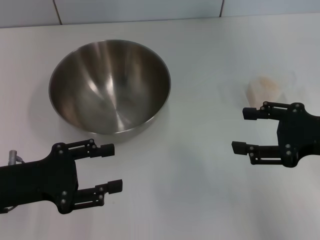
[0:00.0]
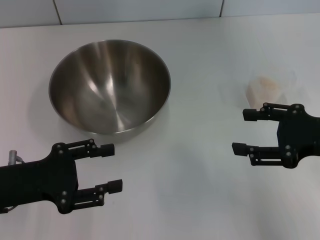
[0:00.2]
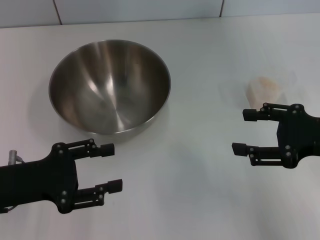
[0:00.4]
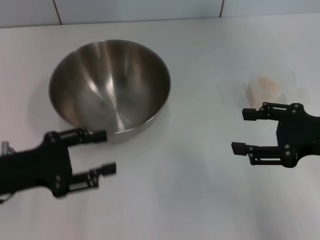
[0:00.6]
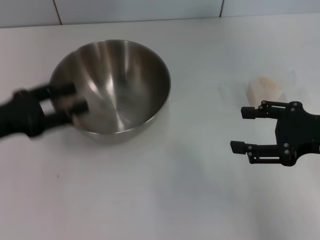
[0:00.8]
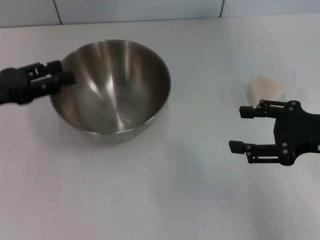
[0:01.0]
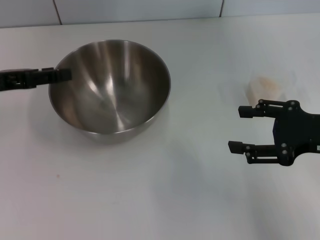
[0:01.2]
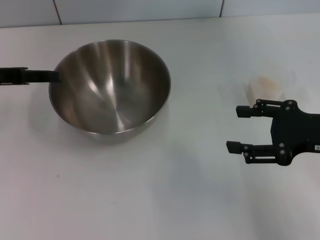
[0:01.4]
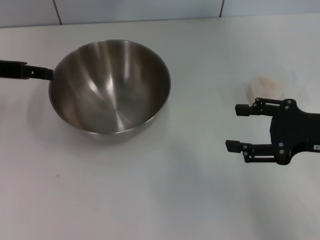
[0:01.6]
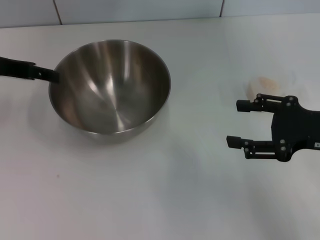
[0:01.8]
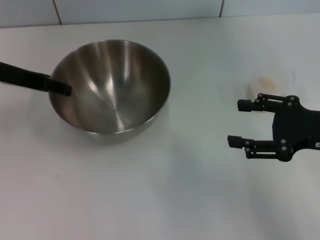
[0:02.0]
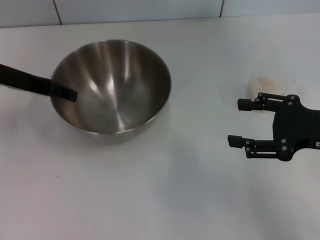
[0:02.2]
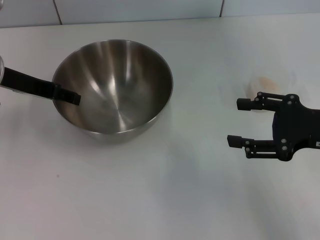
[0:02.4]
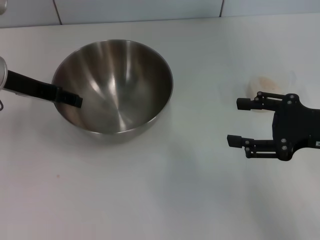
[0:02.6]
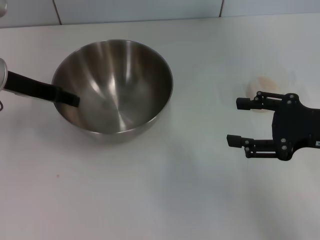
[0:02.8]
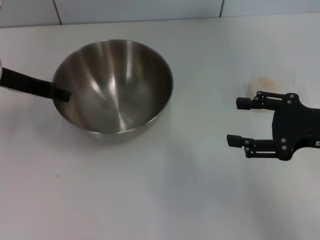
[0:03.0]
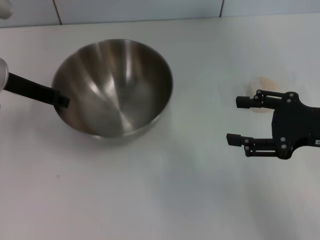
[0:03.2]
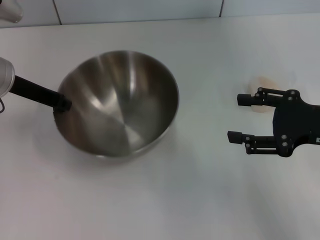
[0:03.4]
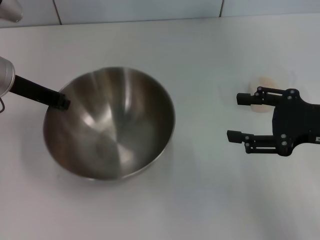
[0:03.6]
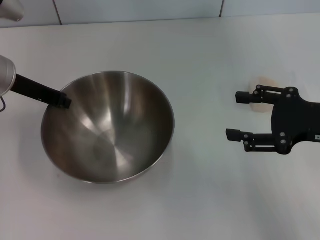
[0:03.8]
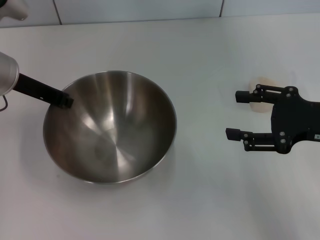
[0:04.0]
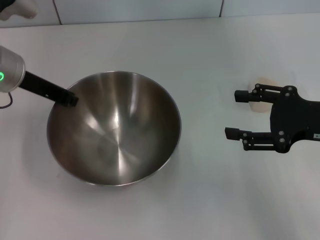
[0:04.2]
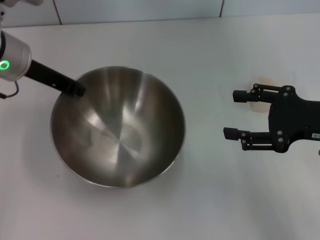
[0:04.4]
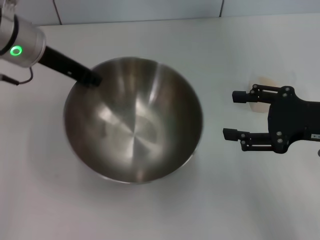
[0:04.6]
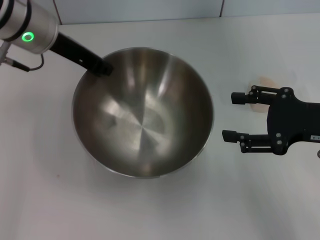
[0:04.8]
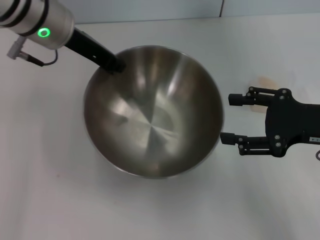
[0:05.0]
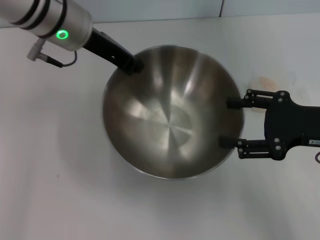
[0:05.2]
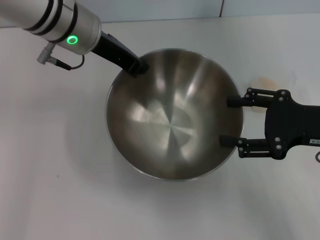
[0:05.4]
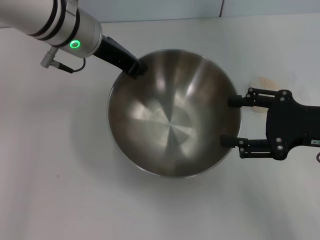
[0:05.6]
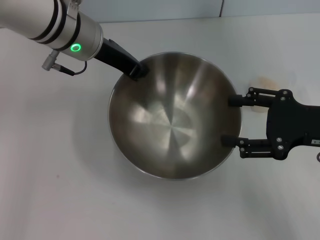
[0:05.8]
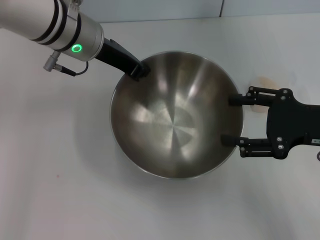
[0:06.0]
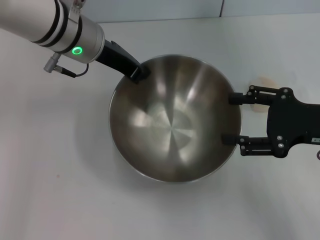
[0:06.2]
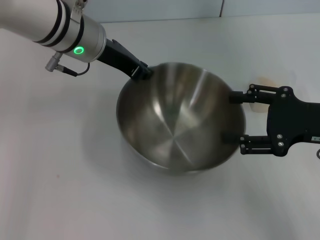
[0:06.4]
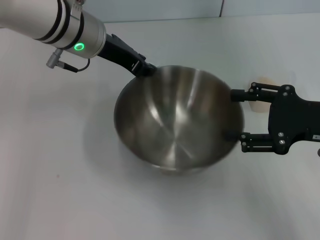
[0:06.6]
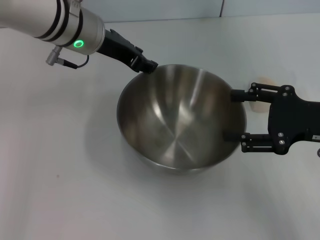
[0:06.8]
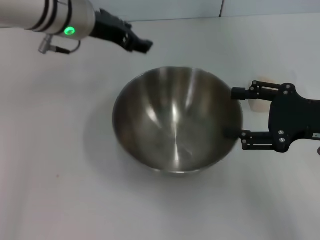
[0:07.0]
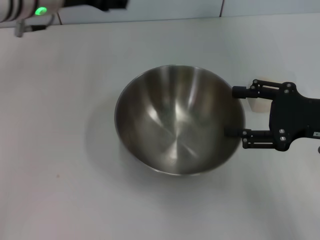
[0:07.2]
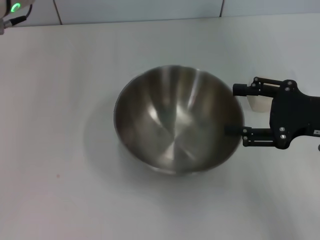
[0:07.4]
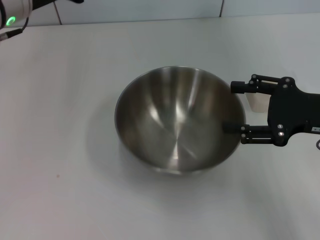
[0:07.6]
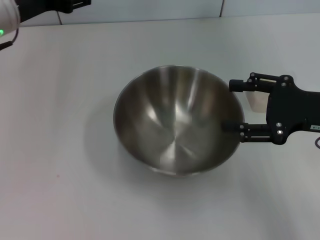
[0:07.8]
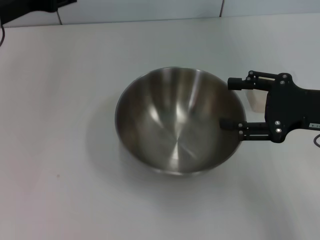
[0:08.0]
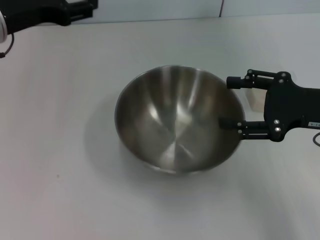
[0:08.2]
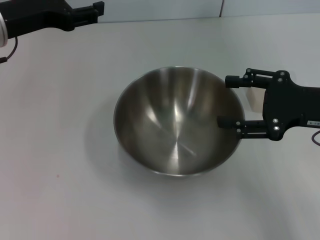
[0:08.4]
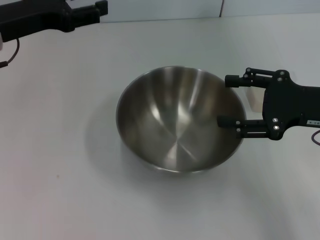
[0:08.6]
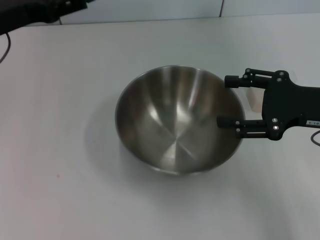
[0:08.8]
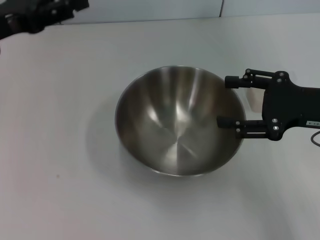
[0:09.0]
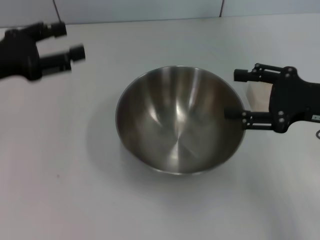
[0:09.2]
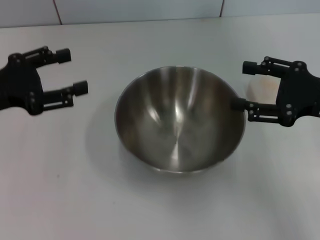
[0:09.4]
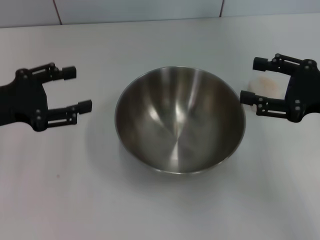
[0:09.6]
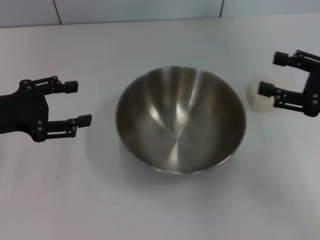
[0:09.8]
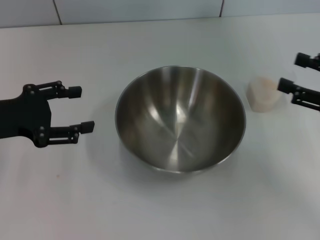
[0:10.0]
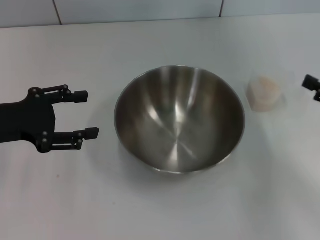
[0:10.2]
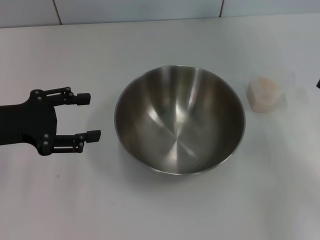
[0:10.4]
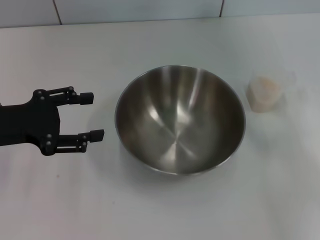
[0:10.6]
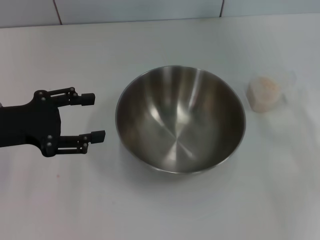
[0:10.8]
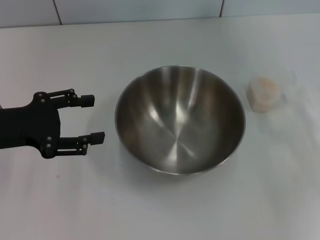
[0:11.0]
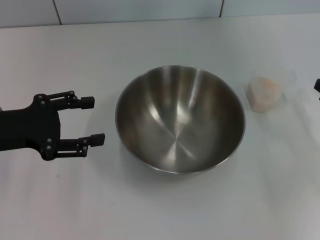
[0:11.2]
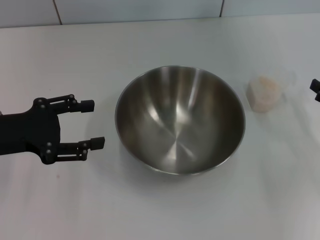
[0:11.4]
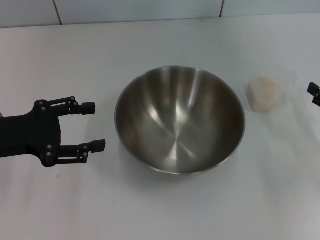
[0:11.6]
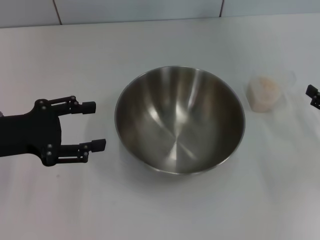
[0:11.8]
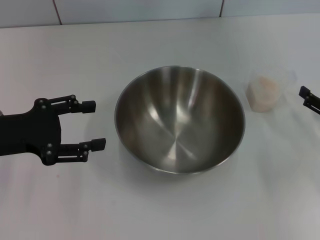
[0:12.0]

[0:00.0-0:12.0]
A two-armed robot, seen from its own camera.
Task of the whole recording: Place the bowl in the middle of the table with one hand and pour the rice from the grain cup into it with the other hand.
Step, 0.0 to 4.6 s: Pick up the bowl with the left gripper.
Step, 4.8 to 7.0 s: Place the bowl in the center of view with the left gripper.
0.0 to 1.6 s: The left gripper is displaced forward and upward by about 15 cm.
1.6 to 3.0 s: The left gripper changes place by approximately 5 cm.
3.0 to 4.4 s: The left gripper ends up some 5 cm from where it was, and closes.
4.4 to 6.0 s: The left gripper shifts about 10 cm to the right.
6.0 to 7.6 s: The left gripper goes about 10 cm to the left, and opens up.
7.6 to 9.0 s: The left gripper travels to the left by approximately 10 cm.
9.0 to 10.4 s: The left gripper is displaced backward and downward by approximately 10 cm, while the right gripper travels to the right and downward by approximately 10 cm.
10.4 to 12.0 s: The right gripper heads downward, covering some 5 cm.

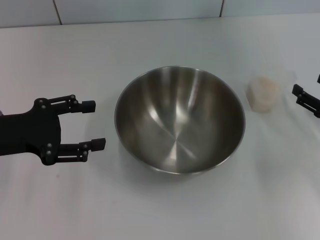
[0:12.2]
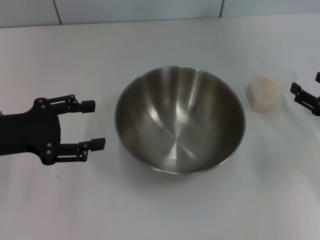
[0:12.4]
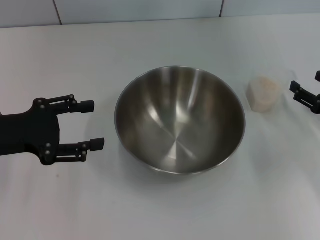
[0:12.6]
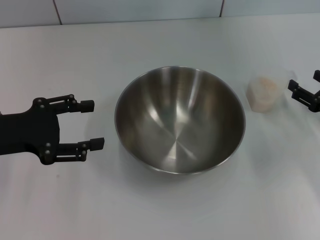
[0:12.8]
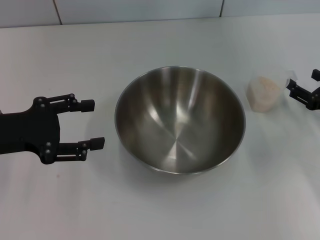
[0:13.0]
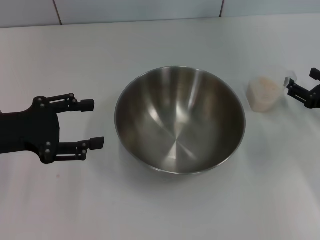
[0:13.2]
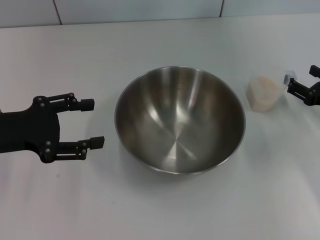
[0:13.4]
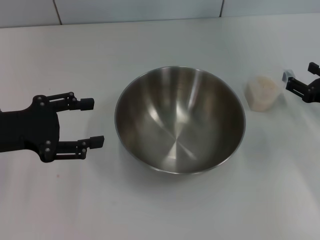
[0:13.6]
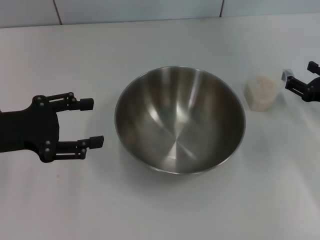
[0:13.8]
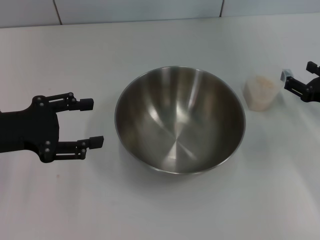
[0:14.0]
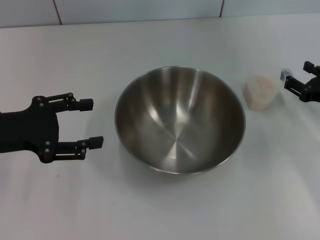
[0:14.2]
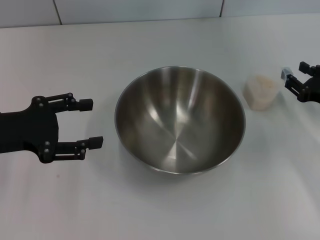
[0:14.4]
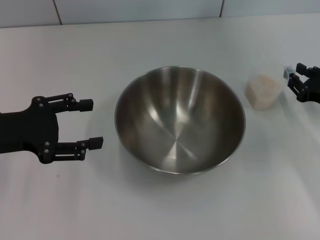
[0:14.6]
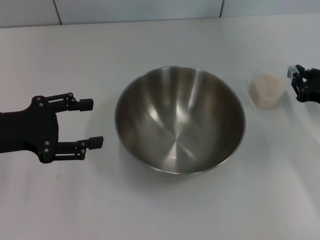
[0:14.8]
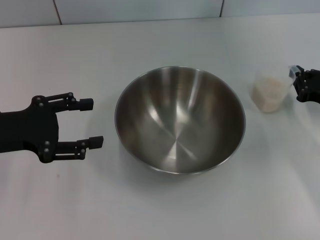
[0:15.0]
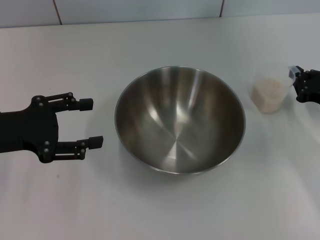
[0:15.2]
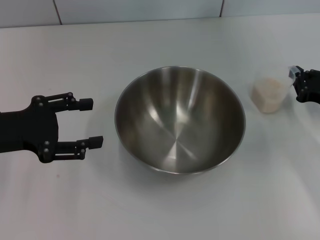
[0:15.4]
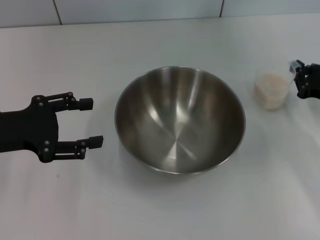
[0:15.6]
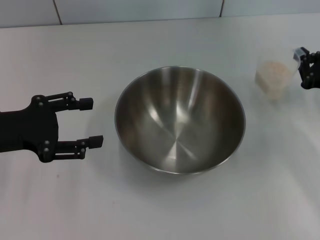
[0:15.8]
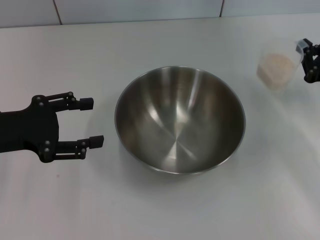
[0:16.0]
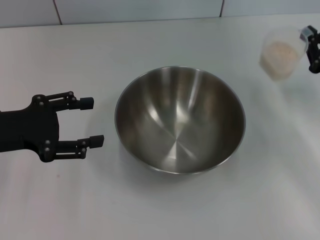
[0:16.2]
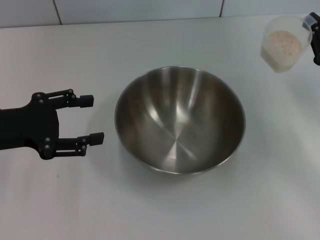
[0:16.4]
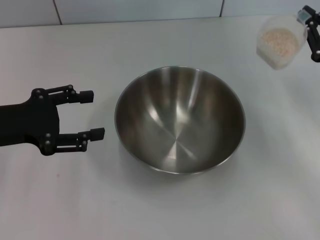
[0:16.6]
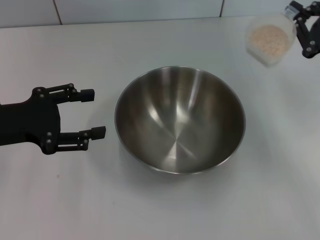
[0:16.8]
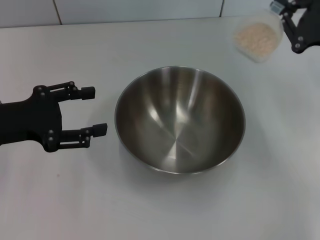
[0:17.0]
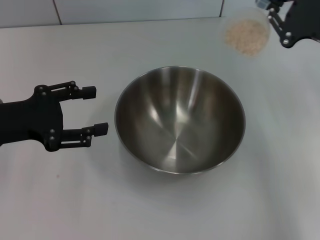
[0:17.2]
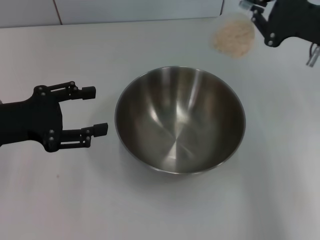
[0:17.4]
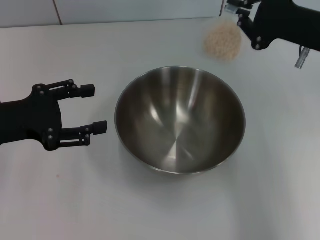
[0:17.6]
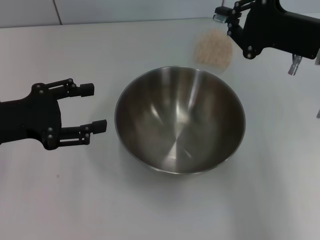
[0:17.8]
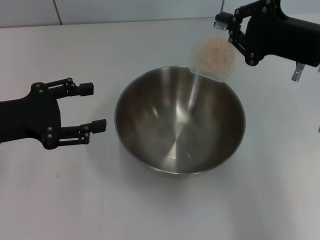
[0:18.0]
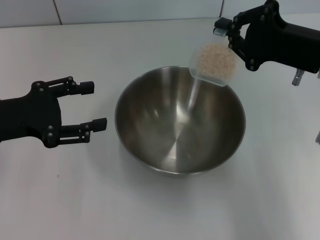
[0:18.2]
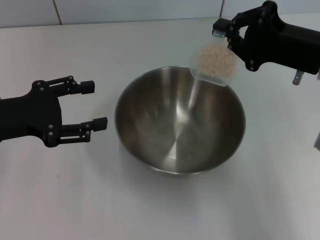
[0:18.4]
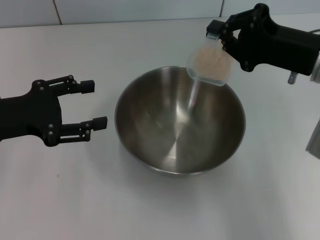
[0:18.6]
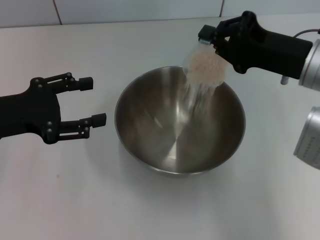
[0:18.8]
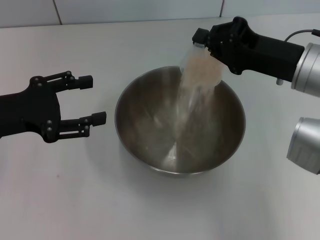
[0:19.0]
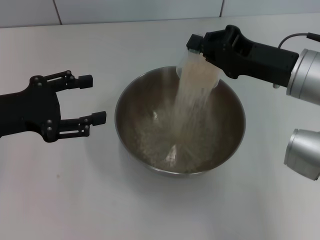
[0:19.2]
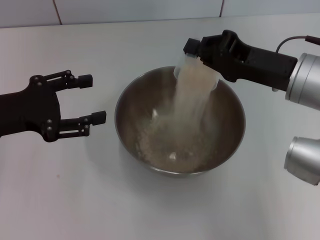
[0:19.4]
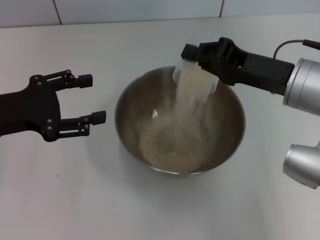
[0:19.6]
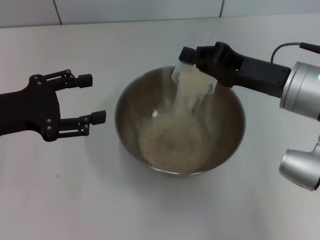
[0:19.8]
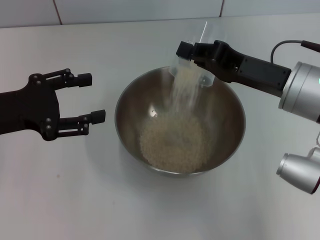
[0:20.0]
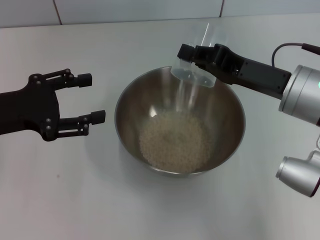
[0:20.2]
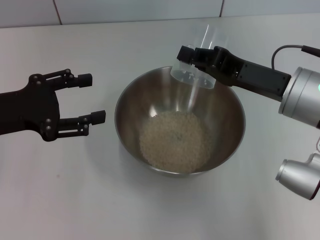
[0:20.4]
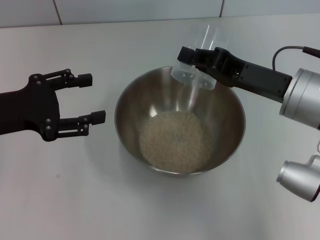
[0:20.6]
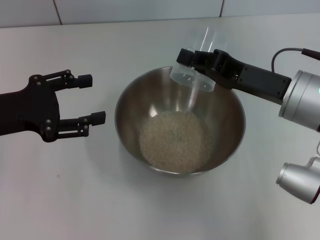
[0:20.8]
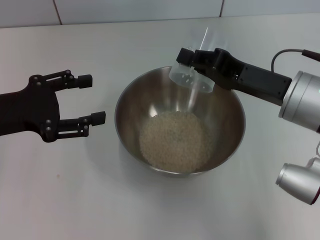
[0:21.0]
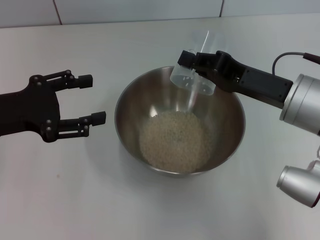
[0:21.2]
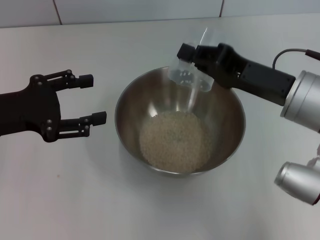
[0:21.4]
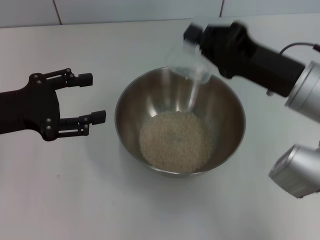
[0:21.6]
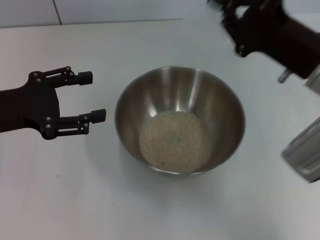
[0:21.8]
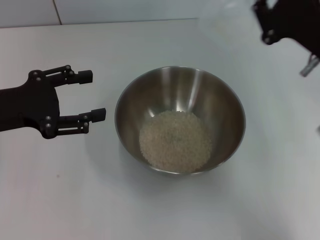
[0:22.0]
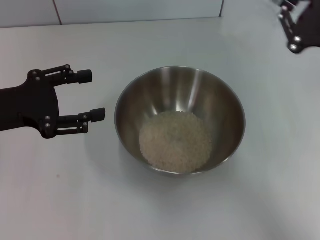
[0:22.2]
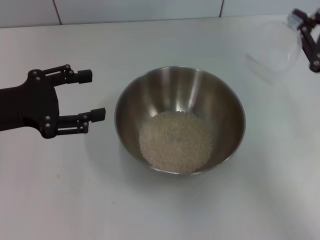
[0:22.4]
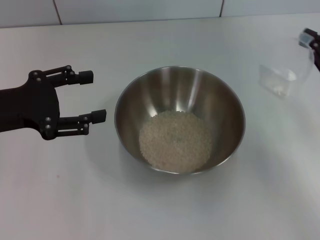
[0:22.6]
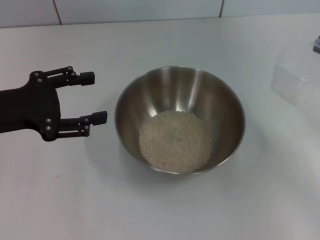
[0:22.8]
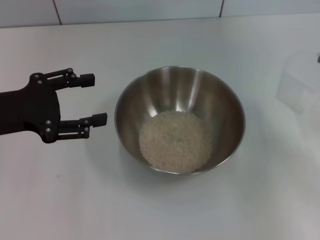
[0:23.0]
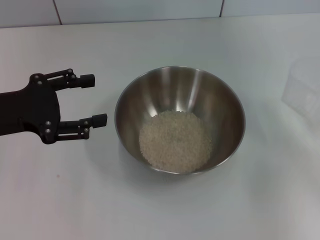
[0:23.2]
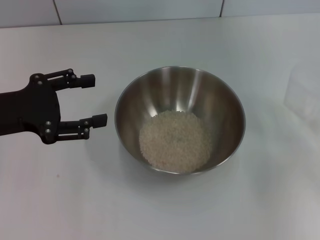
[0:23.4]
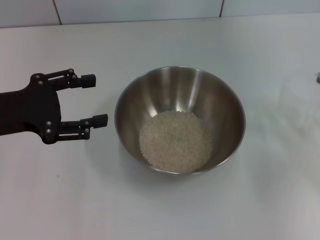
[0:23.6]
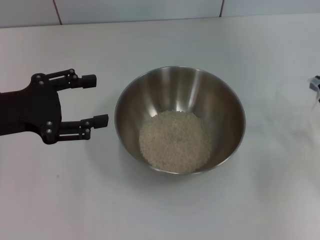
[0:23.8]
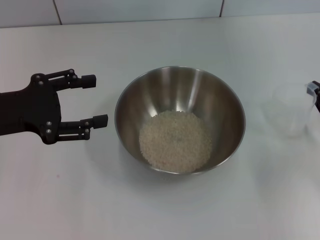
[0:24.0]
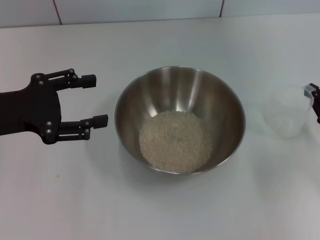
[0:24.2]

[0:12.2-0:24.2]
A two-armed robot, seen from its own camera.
Task of the whole recording: Place the bowl in the middle of the table with one hand and pour the rice from the grain cup into it with the other hand.
Step, 12.2 to 16.2 s: Pick up the cup with rice in it with the right gripper.
Step, 16.4 to 22.0 s: Pour the rice from the cup into the bowl with the right gripper.
12.2 to 13.8 s: The grippers make only small movements.
13.8 to 15.2 s: The right gripper closes up.
15.2 to 16.6 s: The right gripper travels upward by roughly 10 cm.
16.6 to 18.2 s: The right gripper shifts some 10 cm to the left and upward.
18.2 to 19.8 s: The right gripper moves roughly 5 cm.
19.8 to 21.2 s: There are only small adjustments of the grippers.
21.2 to 22.6 s: The right gripper heads to the right, covering approximately 15 cm.
22.6 to 24.2 s: The right gripper travels downward by about 10 cm.
